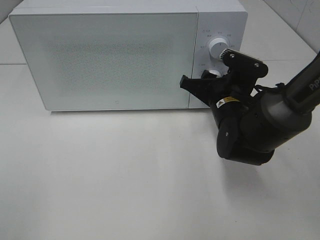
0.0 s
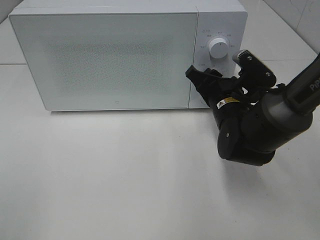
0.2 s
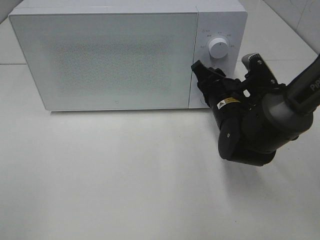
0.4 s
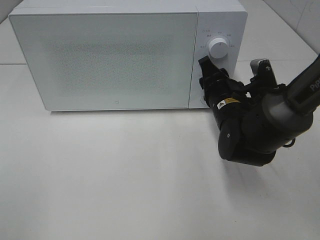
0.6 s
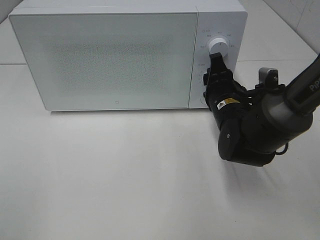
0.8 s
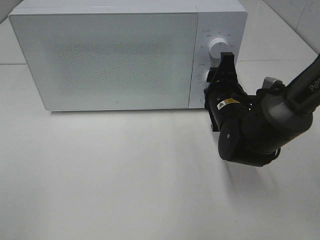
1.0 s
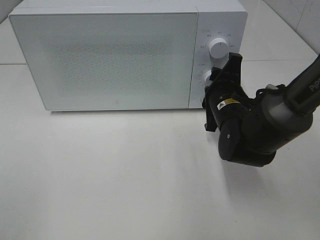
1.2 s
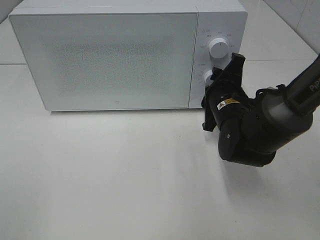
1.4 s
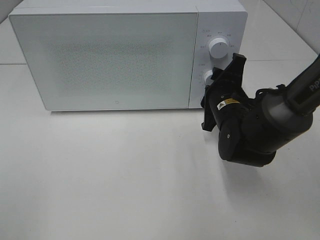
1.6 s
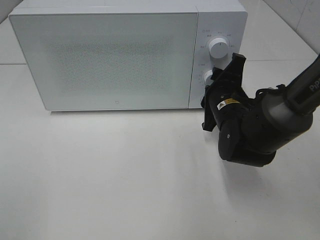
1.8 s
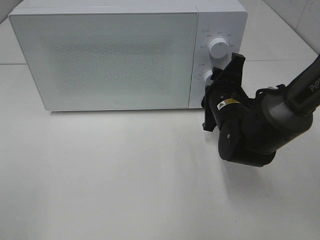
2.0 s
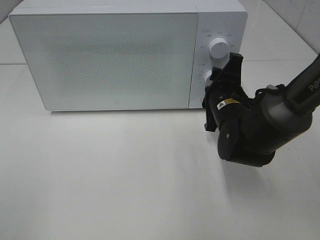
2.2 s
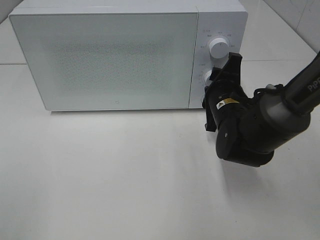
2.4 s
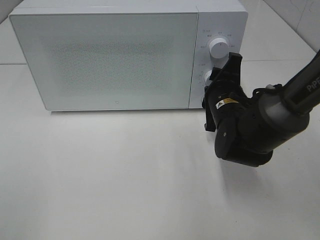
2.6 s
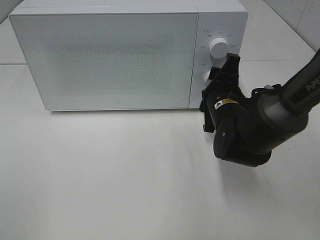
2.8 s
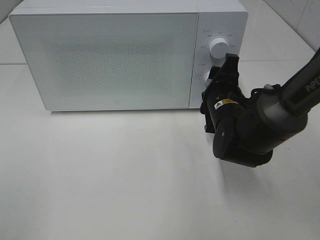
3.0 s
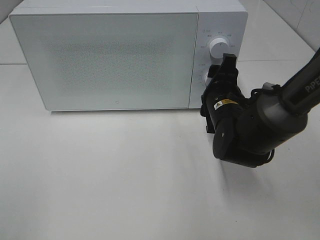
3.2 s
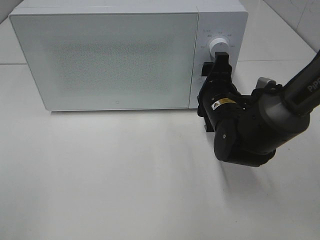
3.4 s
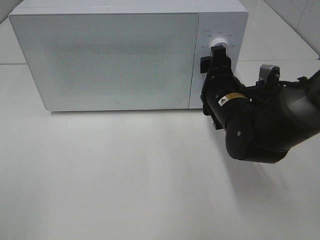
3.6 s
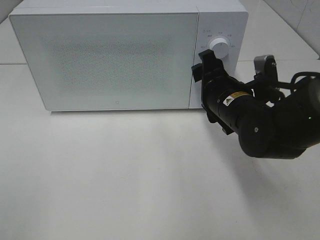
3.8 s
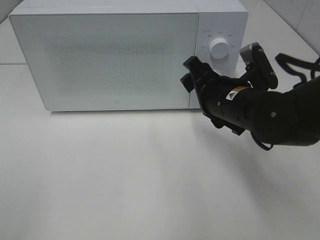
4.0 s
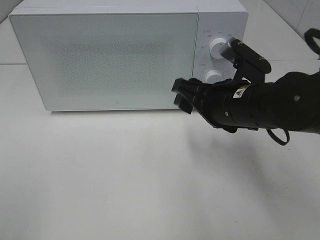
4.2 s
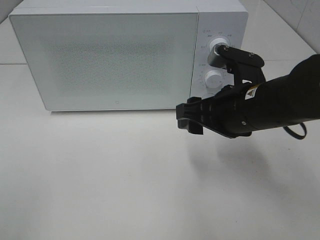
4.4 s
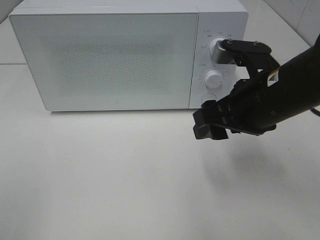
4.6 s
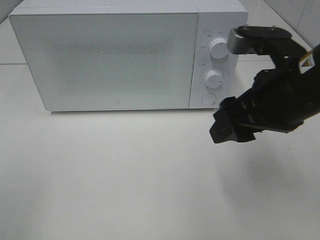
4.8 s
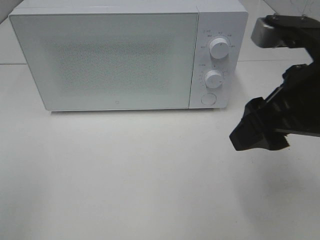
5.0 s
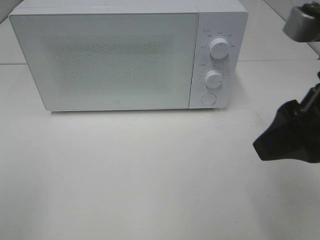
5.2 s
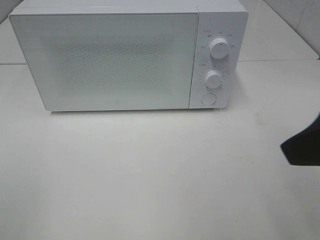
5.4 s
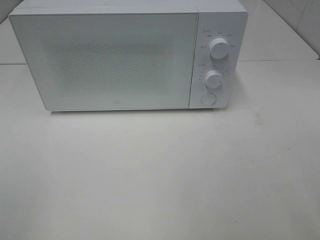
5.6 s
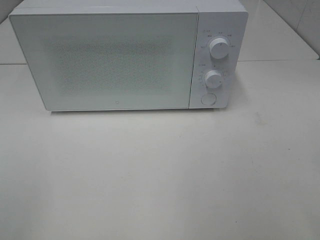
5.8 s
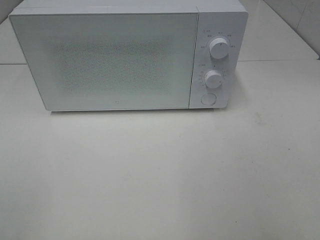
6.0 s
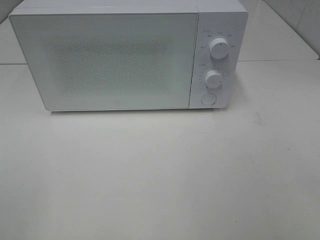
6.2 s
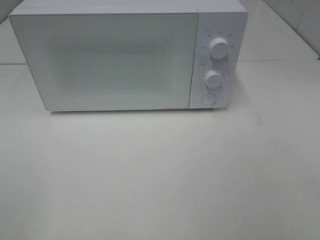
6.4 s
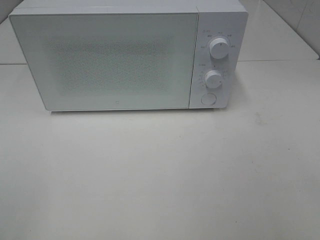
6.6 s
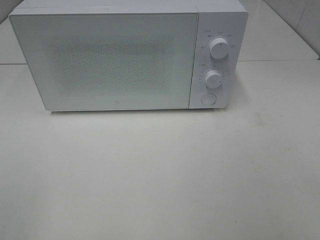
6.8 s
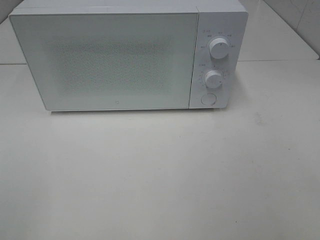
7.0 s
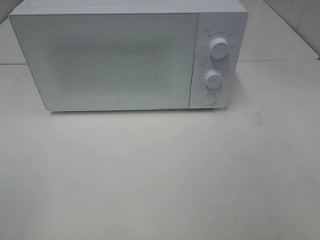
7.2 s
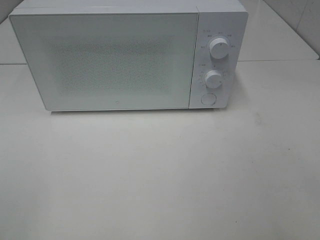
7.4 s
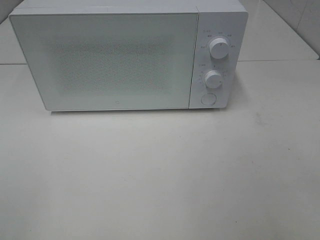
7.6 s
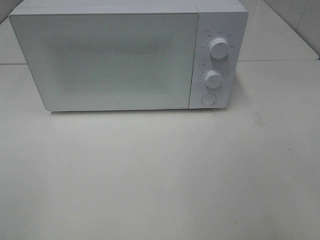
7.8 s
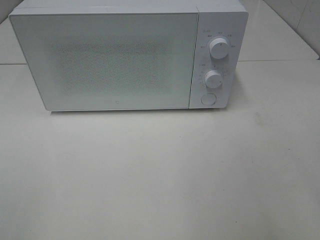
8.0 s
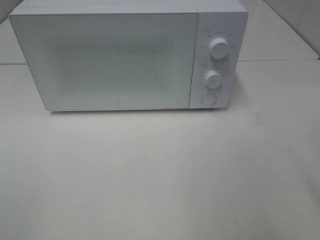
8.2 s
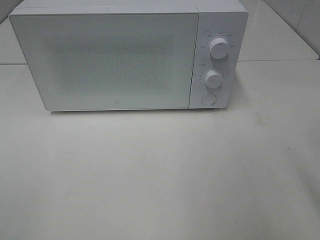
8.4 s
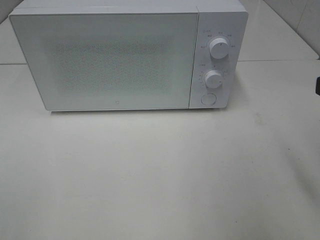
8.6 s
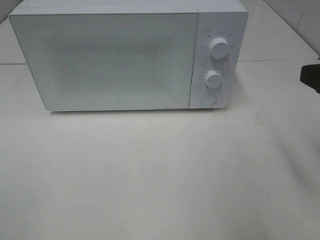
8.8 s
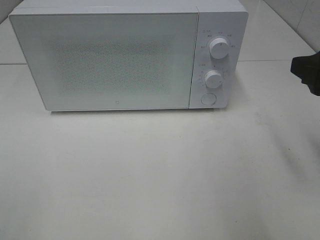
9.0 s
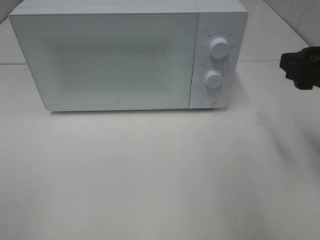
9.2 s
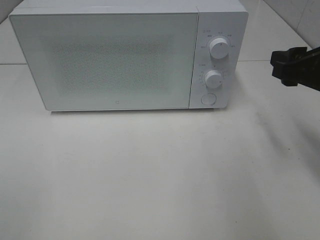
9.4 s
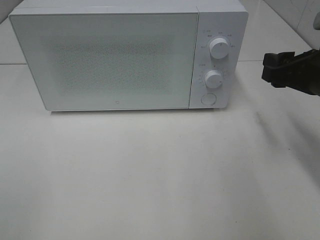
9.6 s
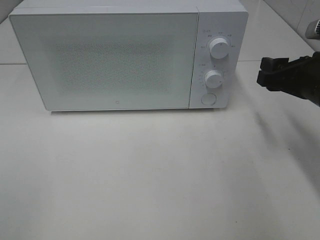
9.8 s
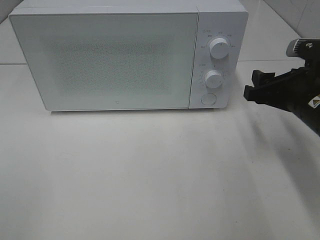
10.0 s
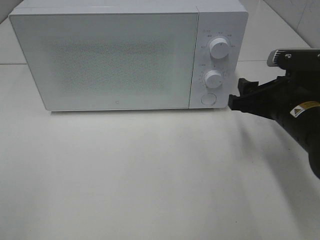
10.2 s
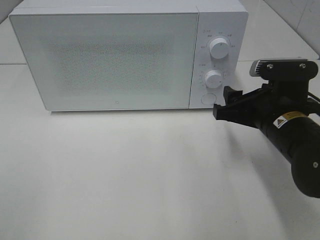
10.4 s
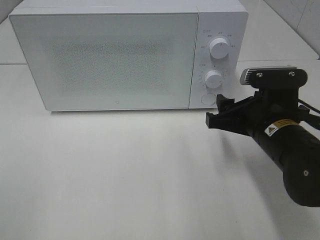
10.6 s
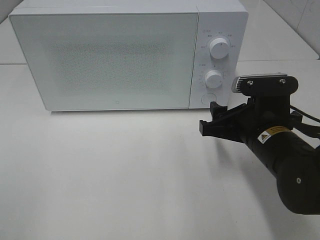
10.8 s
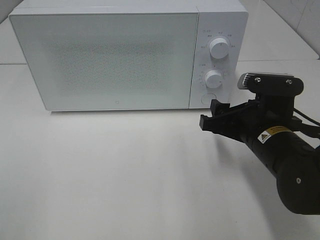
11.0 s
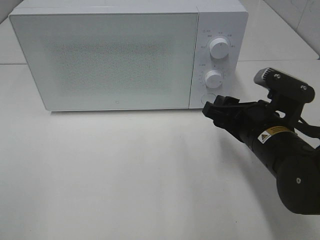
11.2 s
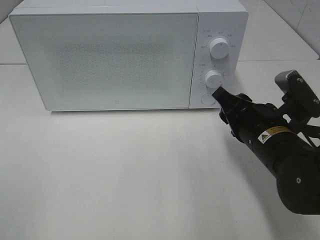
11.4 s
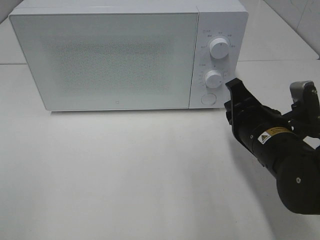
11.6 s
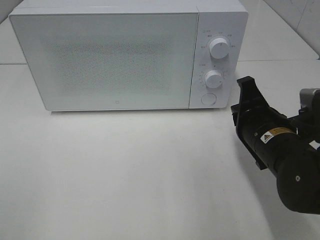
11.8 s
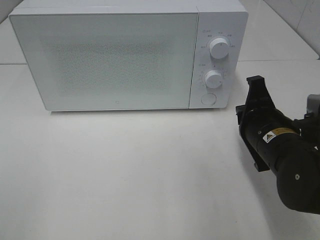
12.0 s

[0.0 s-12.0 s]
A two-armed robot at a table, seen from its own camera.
Task of the whole recording: Heat the burger.
Step, 0.0 to 2.8 s: Right hand: twist timer button.
1.6 to 3.0 s: The grippers make only small movements.
3.0 to 4.4 s: The right gripper travels backward and upward by roughly 10 cm.
4.4 to 6.0 s: The right gripper shifts roughly 30 cm backward, to the right and upward.
7.6 to 9.0 s: The right gripper moves forward, some 20 cm.
9.0 to 10.4 s: The right gripper travels downward, to the left and forward by some 15 cm.
10.4 to 12.0 s: The right gripper closes.

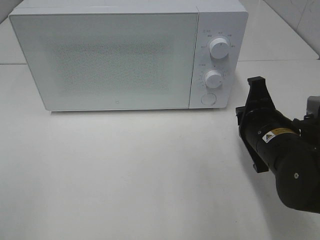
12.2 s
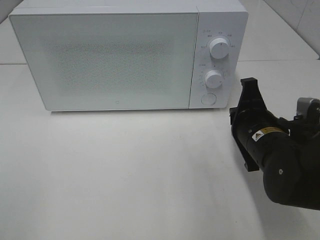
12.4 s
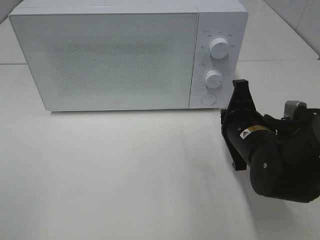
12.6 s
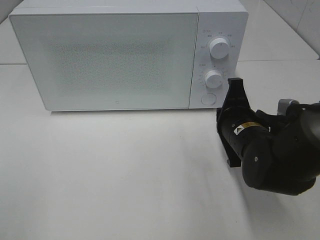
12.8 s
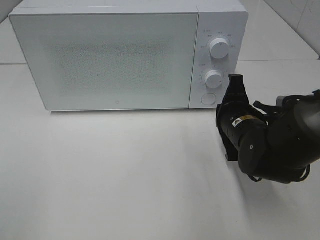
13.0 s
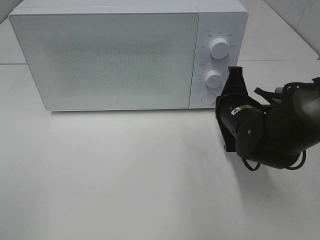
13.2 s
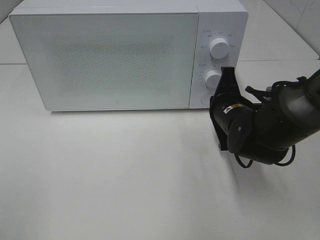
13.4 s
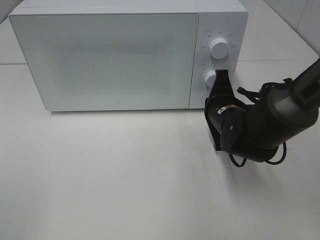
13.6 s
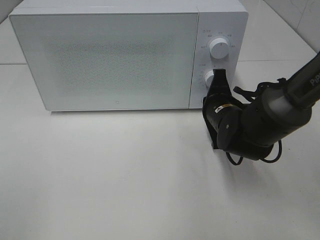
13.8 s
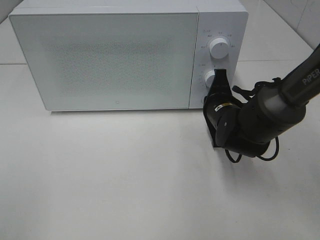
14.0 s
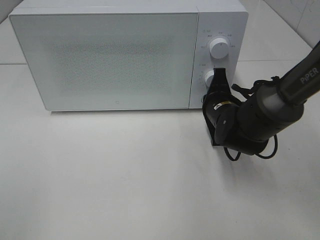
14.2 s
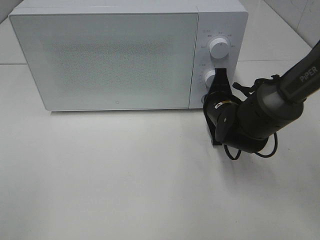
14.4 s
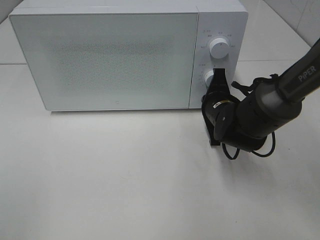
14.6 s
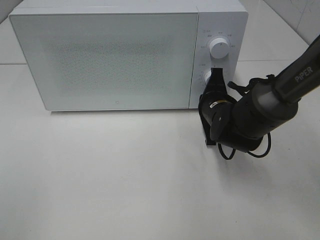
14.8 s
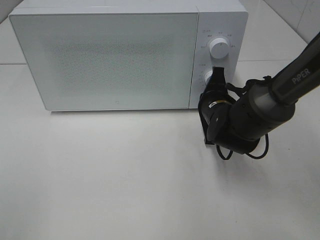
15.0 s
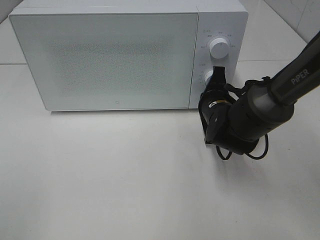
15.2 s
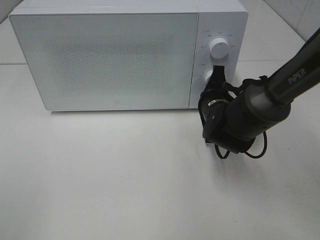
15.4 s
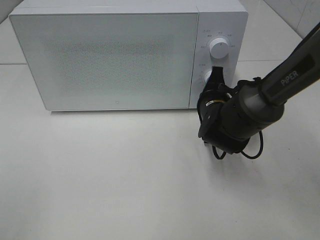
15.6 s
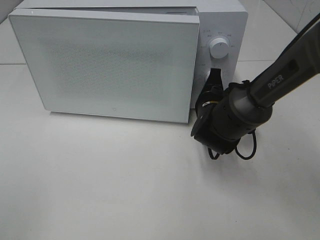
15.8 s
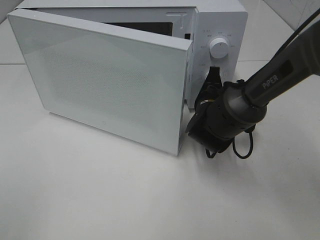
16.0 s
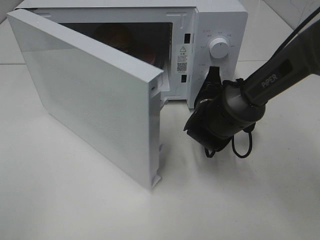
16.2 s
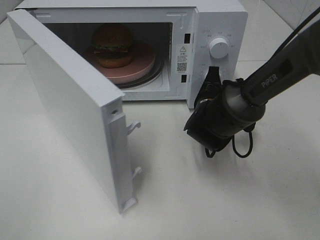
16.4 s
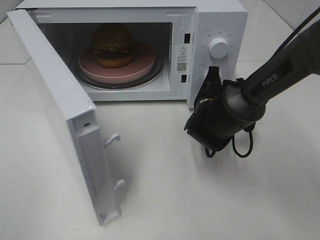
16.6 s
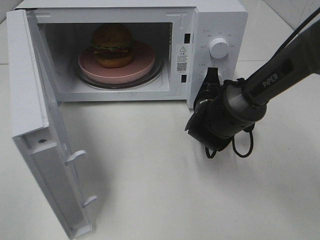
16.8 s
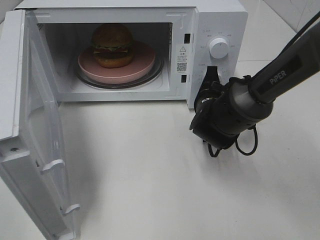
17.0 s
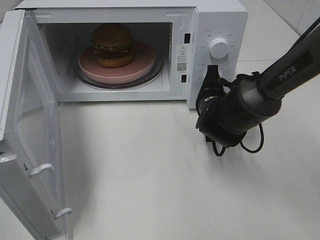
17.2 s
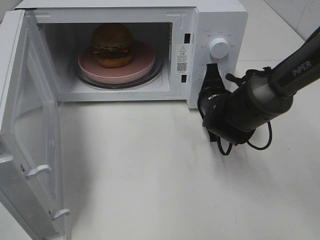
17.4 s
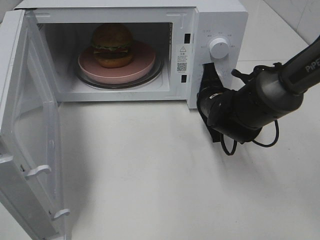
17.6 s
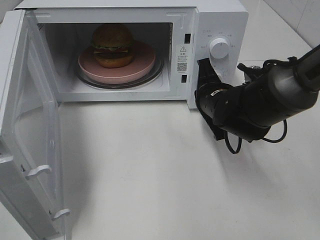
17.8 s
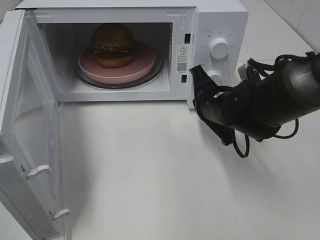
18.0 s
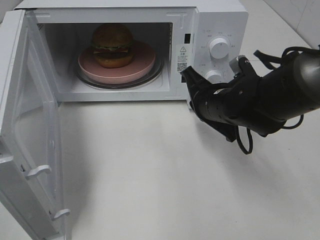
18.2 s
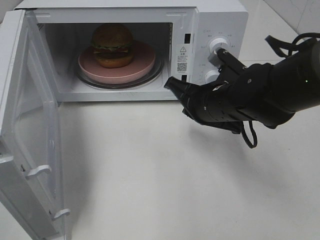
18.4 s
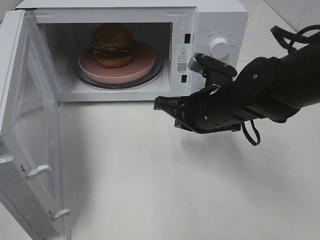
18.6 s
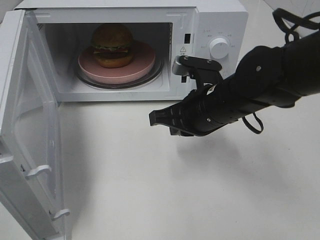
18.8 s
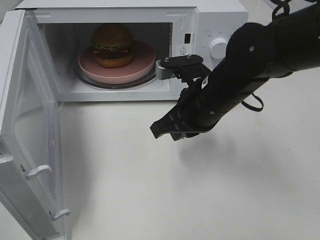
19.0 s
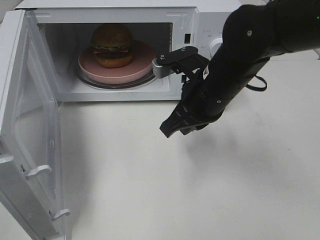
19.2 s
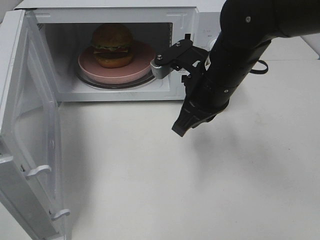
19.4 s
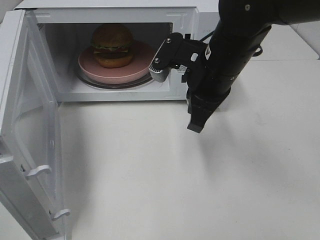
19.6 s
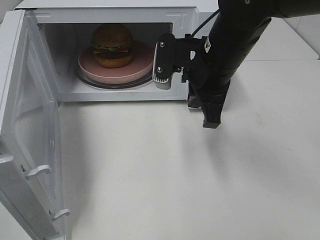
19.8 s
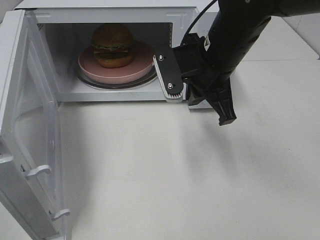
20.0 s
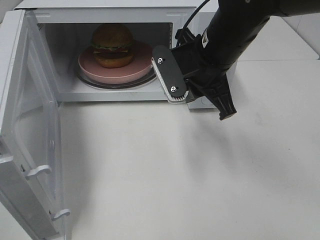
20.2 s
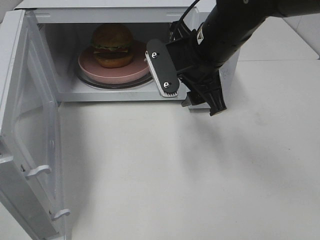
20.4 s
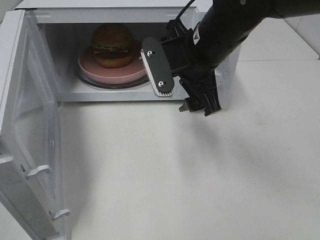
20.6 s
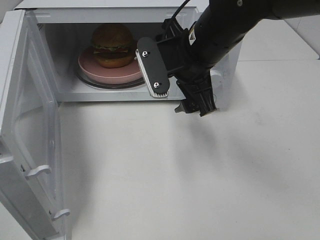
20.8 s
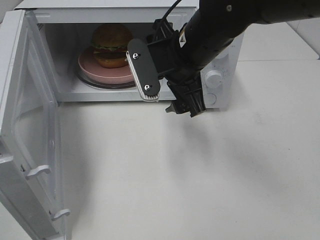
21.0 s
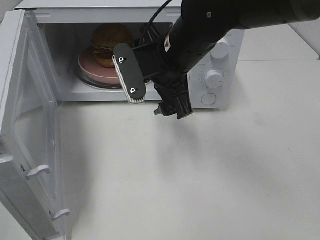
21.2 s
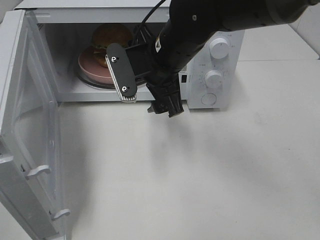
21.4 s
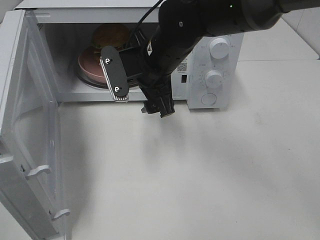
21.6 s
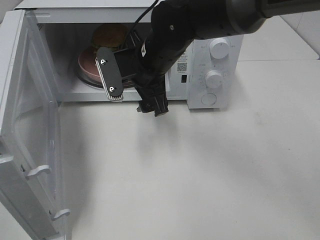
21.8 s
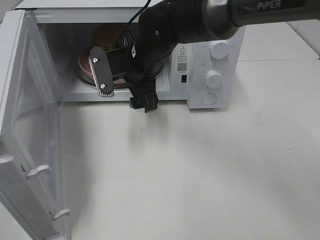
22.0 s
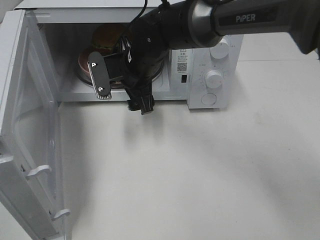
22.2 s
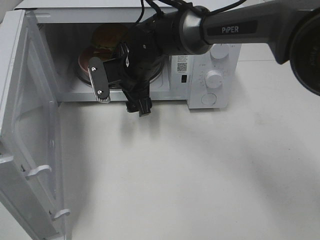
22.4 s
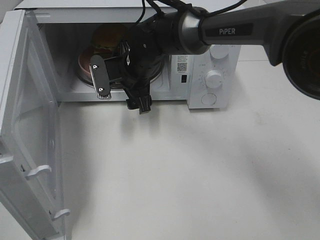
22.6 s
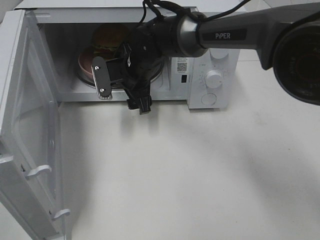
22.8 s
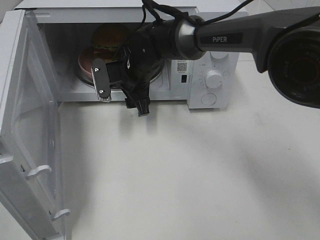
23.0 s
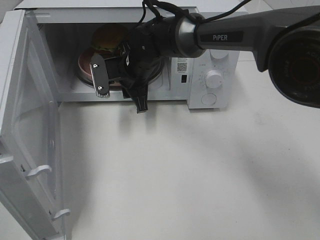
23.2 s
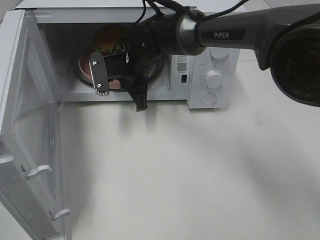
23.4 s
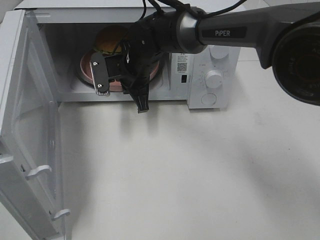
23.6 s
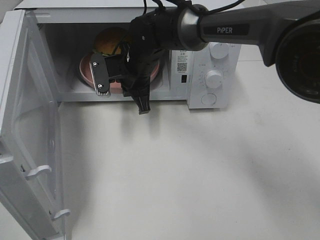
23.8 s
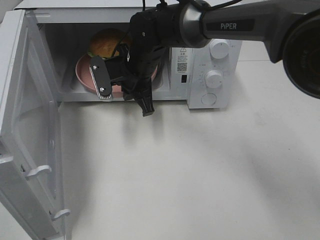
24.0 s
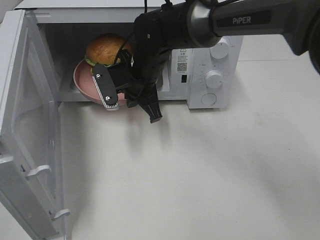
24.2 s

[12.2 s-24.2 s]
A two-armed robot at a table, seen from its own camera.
Task of the whole recording: Heat the burger.
Step, 12.2 to 17.6 s: Right hand: press the switch.
Step, 17.8 to 23.6 s: Right hand: grab the plate with the hamburger.
12.2 to 13.8 s: The right gripper goes some 10 cm forward.
13.8 to 15.2 s: There are only small adjustments of the grippers.
16.6 to 18.2 s: The right gripper goes roughly 5 cm upward.
18.2 to 19.8 s: The right gripper is displaced upward by approximately 10 cm.
19.8 to 21.2 s: The right gripper heads to the left, covering some 5 cm, and opens up.
21.2 to 22.6 s: The right gripper goes some 15 cm forward, downward and to the left.
22.6 to 24.2 s: The right gripper closes up.
